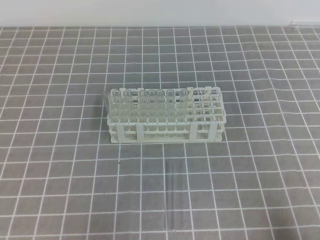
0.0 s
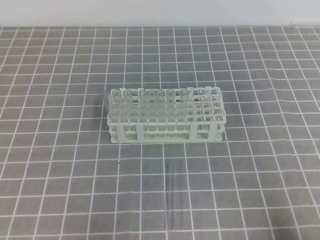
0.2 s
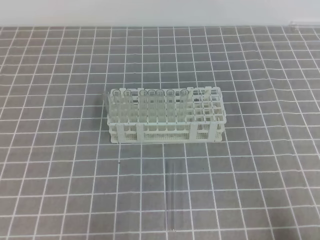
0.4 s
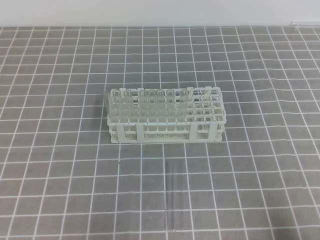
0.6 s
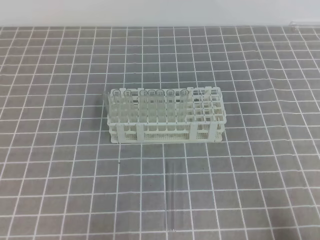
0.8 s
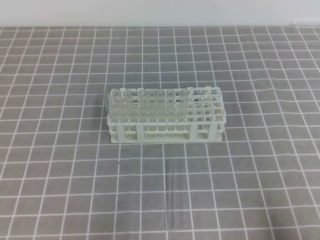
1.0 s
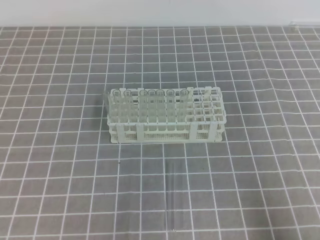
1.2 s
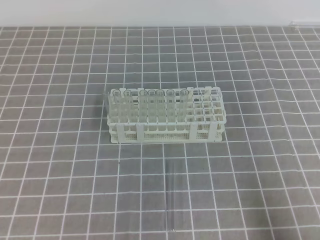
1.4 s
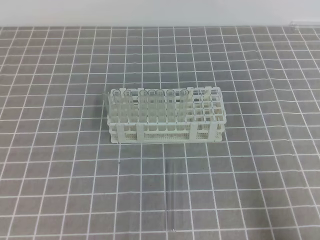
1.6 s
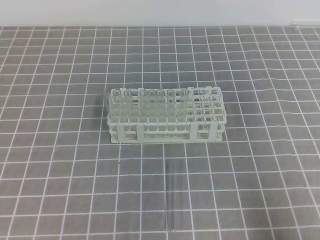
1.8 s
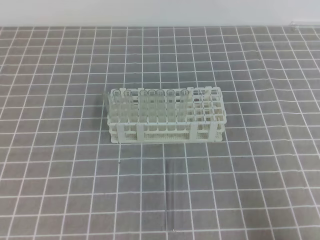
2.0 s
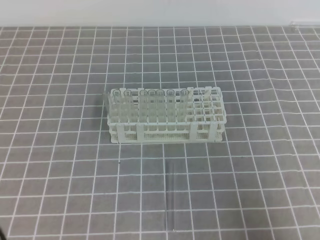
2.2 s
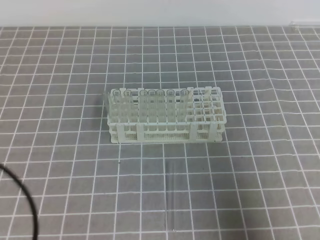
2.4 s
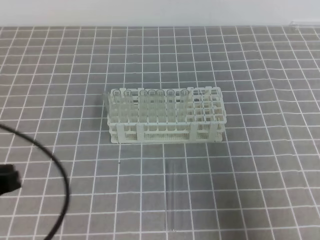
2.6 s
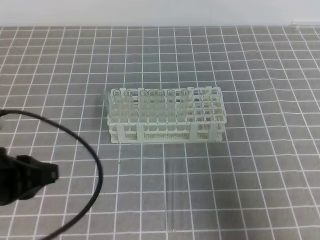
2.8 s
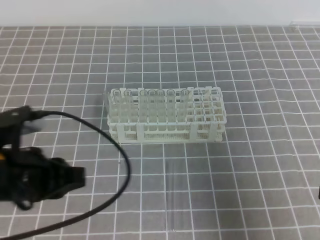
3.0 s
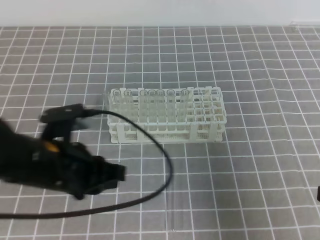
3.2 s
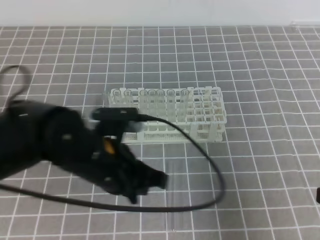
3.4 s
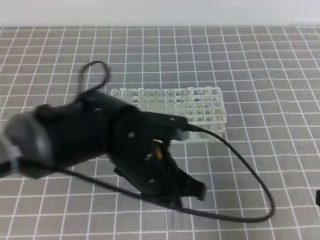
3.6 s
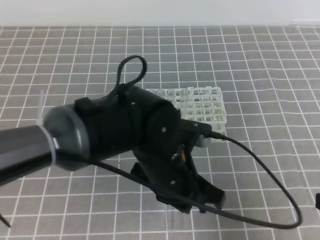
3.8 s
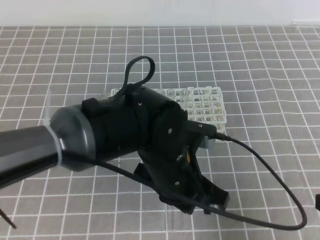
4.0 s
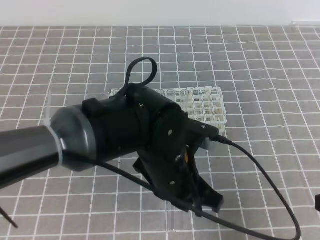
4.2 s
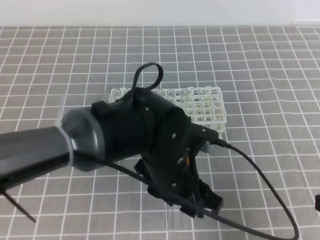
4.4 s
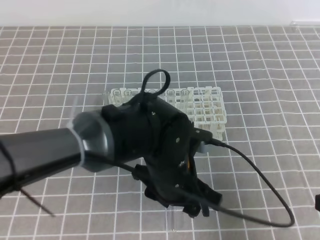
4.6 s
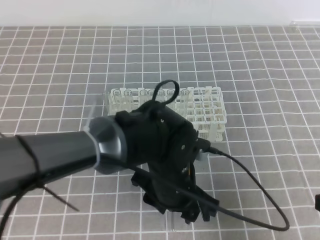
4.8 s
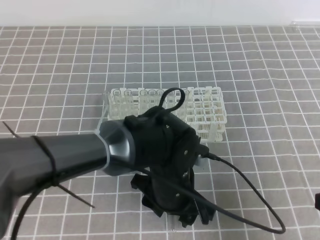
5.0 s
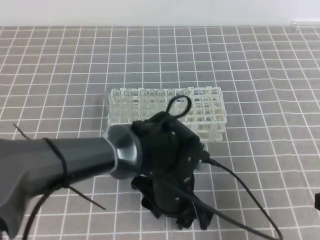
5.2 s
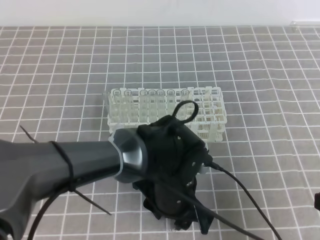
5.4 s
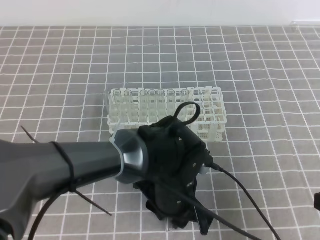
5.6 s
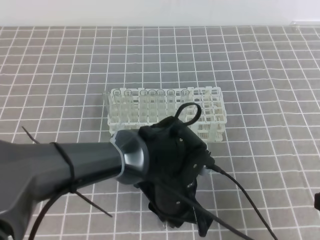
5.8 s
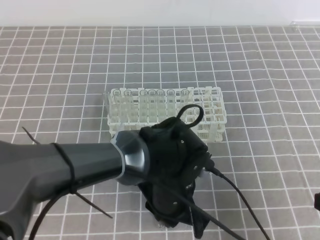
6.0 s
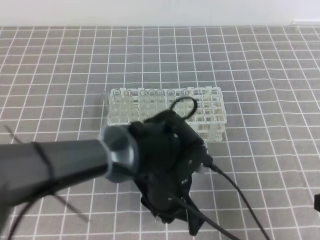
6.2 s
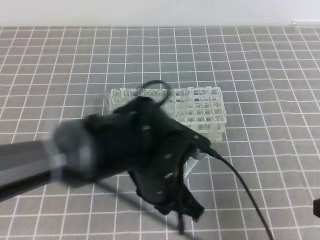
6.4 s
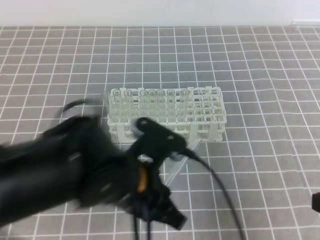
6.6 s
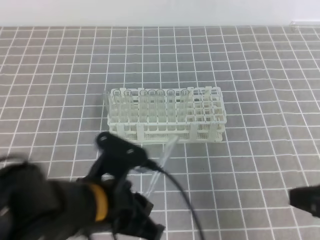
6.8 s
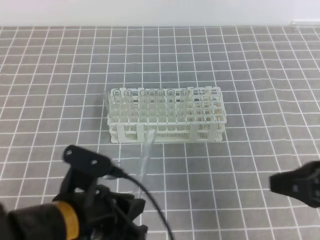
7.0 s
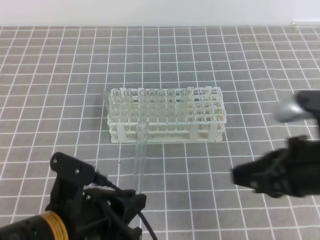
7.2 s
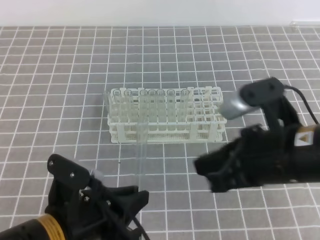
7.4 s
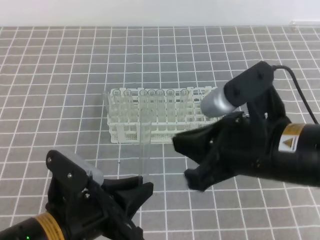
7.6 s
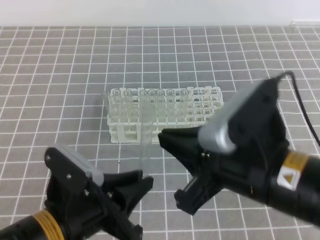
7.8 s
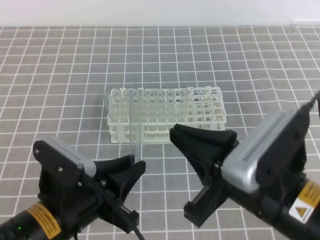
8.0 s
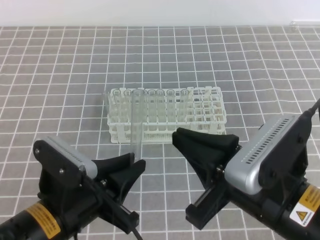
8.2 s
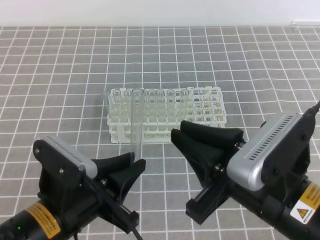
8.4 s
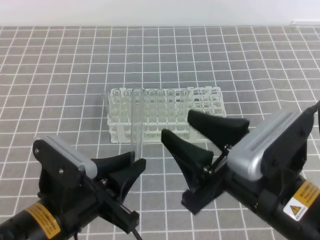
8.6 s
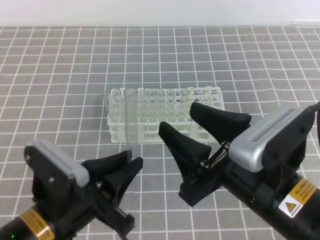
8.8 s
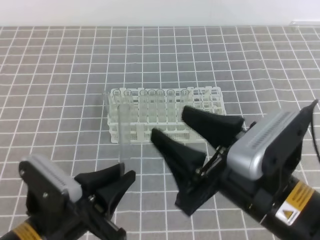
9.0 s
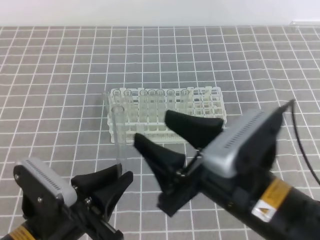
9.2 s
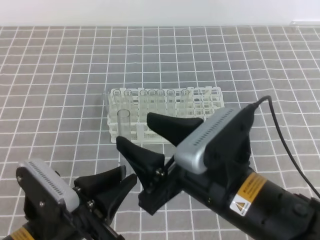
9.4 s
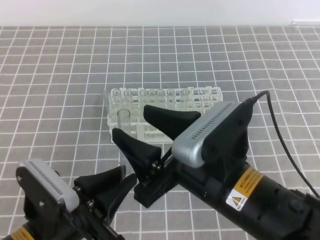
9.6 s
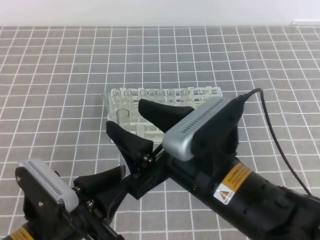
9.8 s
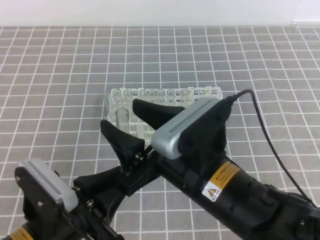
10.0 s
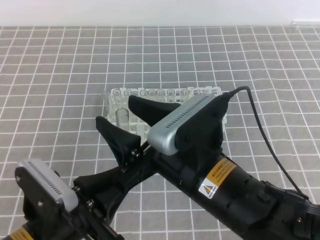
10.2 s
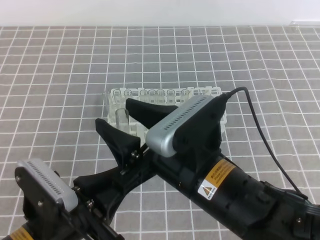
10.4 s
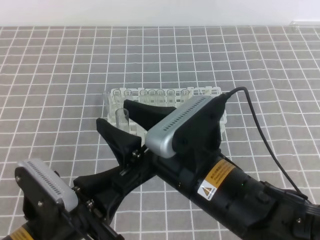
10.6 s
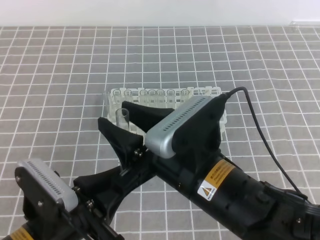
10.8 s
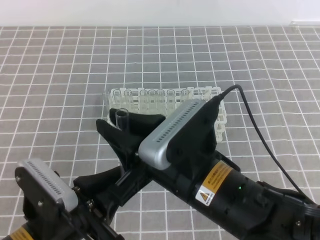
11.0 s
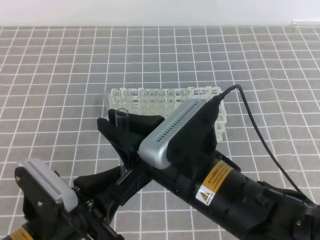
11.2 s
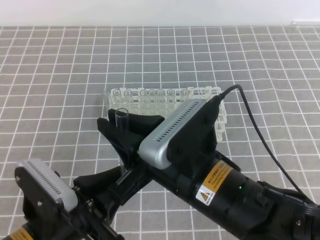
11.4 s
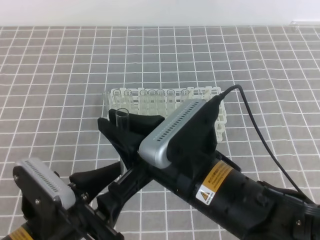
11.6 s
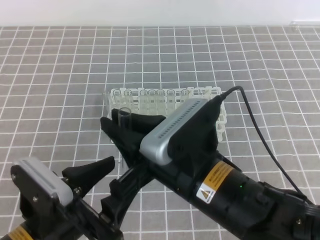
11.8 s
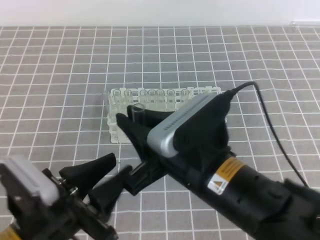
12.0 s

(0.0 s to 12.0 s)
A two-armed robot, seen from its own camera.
1.6 s - 3.0 s: The right gripper goes approximately 10 cm forward and upward; the left gripper moves forward, to the right and upward, some 15 cm.
3.0 s - 4.4 s: The left gripper shifts approximately 20 cm to the right, and opens.
4.4 s - 6.0 s: The left gripper travels downward by about 5 cm, and closes.
6.0 s - 7.6 s: The left gripper goes about 15 cm to the left and backward. The right gripper moves to the left, about 15 cm.
7.6 s - 9.0 s: The right gripper opens.
9.0 s - 10.4 s: The right gripper moves to the left, roughly 5 cm.
10.4 s - 12.0 s: The left gripper opens, while the right gripper closes its fingers.

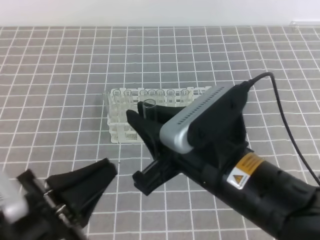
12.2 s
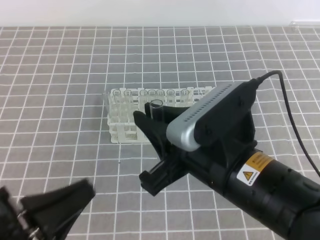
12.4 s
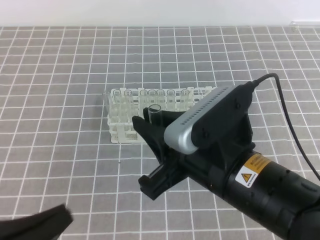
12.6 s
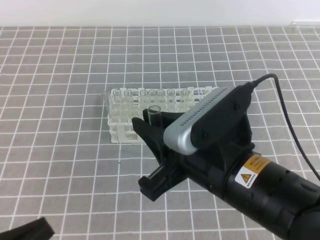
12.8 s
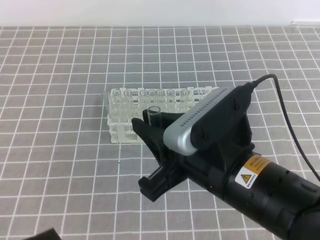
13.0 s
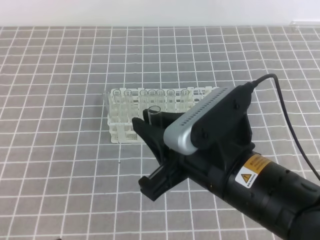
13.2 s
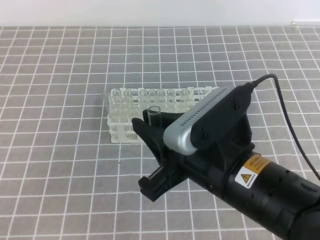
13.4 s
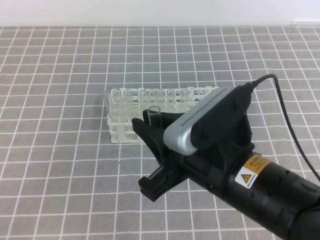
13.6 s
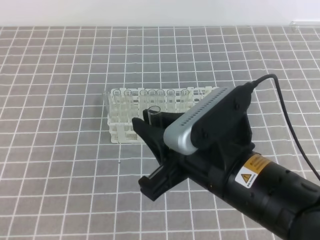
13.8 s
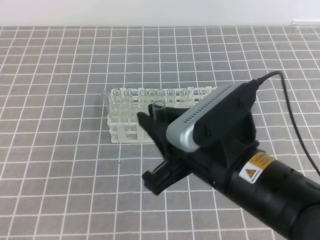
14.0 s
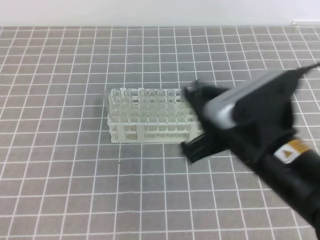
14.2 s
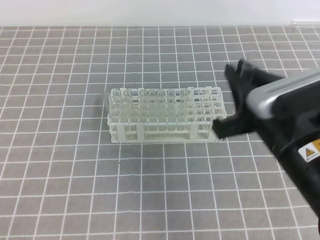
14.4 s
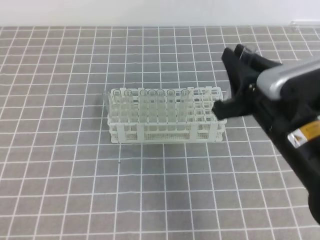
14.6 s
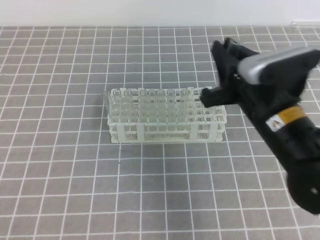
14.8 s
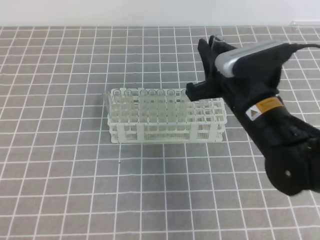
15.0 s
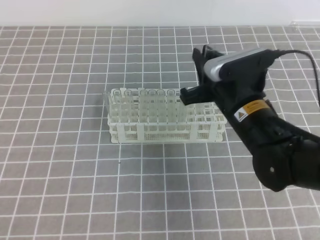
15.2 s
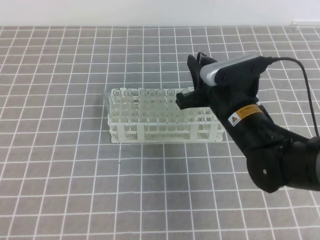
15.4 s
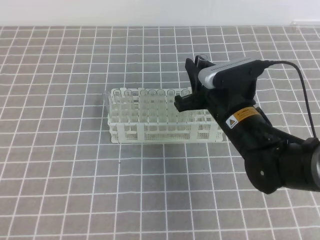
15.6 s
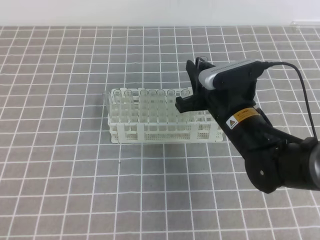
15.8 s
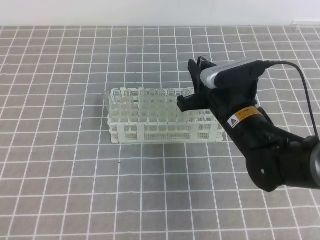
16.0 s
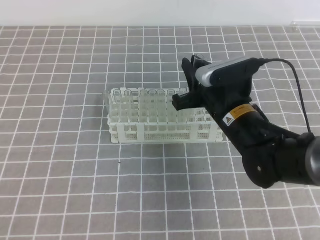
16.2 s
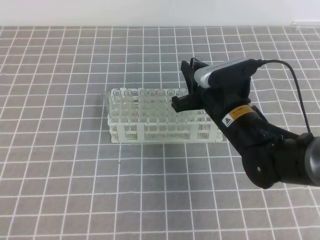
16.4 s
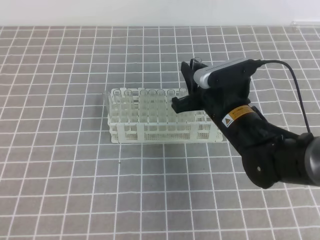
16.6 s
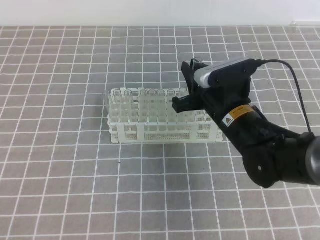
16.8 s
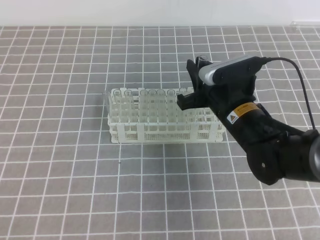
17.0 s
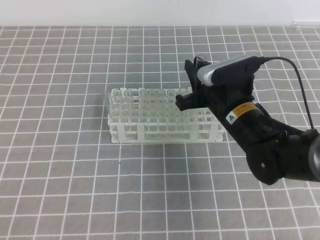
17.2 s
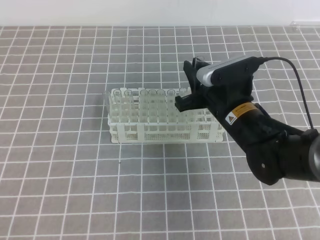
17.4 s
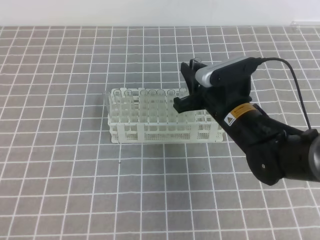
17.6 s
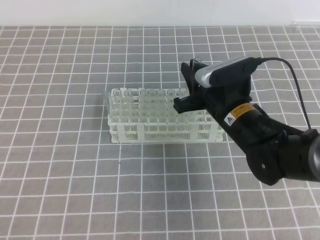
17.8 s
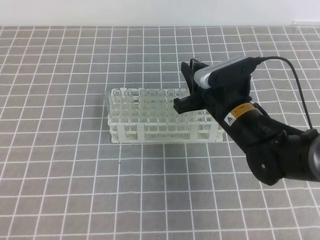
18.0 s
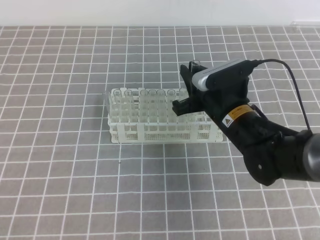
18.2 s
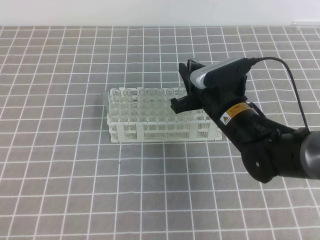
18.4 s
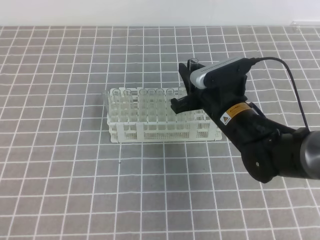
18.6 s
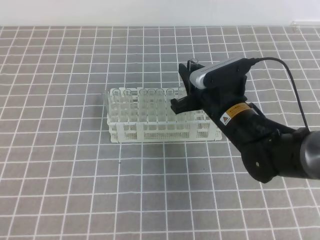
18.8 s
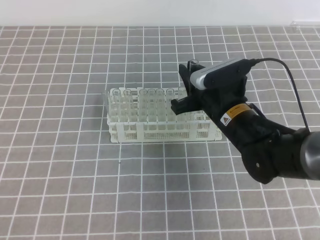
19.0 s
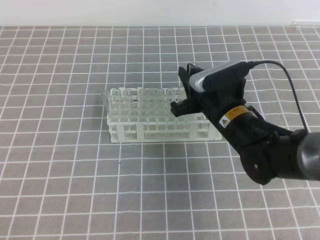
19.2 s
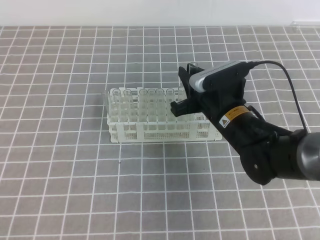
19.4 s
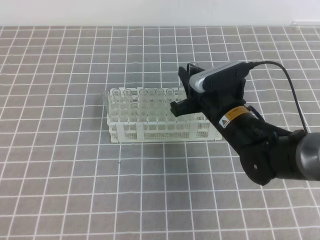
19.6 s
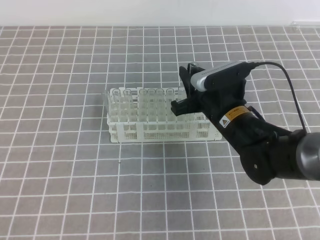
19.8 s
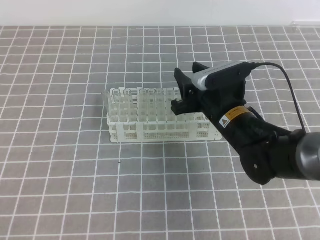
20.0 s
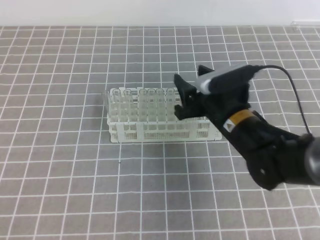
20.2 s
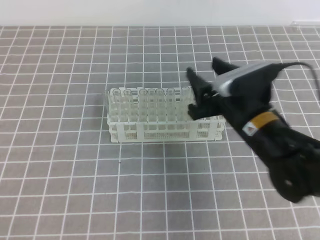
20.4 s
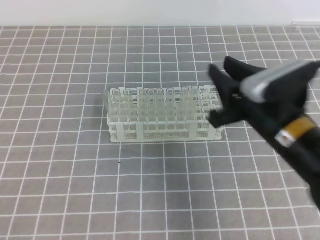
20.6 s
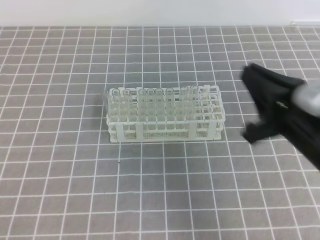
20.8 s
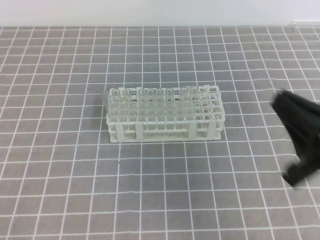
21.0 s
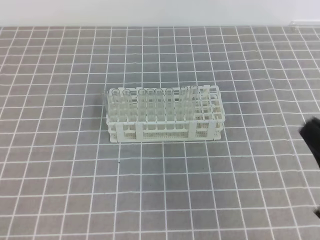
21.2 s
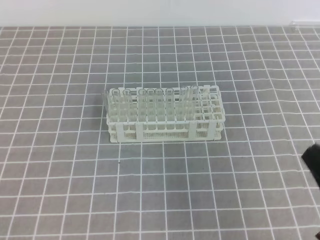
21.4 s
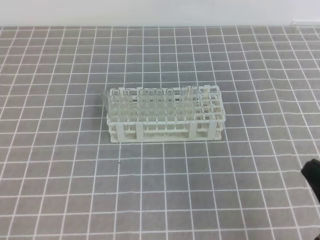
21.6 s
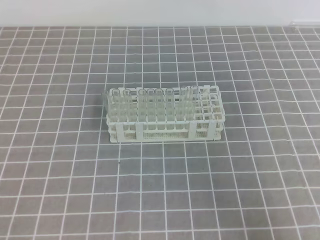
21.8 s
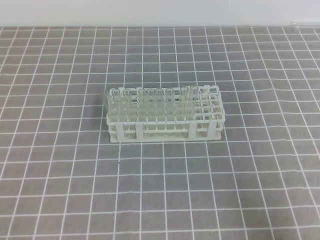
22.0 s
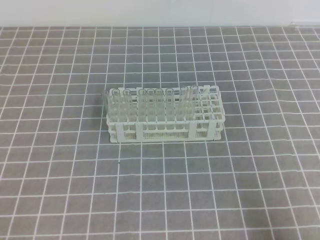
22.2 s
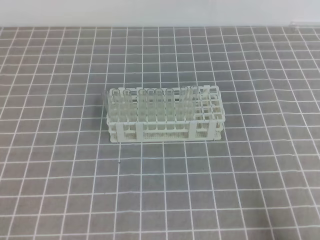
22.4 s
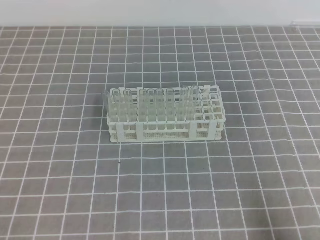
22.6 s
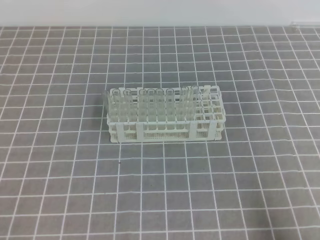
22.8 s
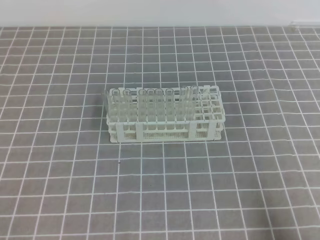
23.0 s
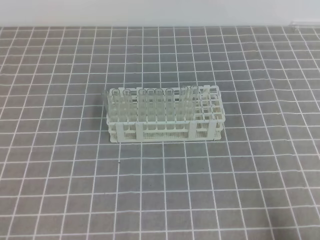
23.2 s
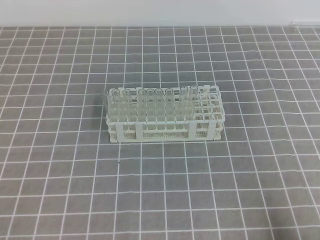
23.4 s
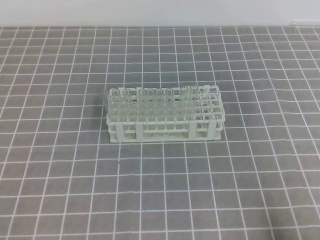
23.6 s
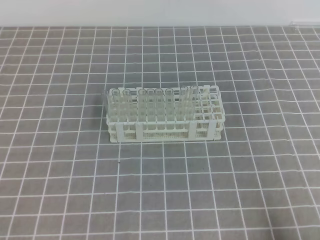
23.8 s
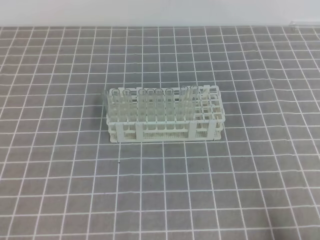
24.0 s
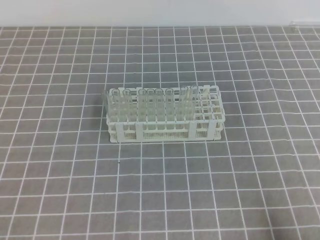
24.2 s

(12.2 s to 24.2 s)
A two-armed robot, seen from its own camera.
12.2 s - 13.8 s: The left gripper moves to the left, backward and downward, about 10 cm.
13.8 s - 15.2 s: The right gripper goes about 15 cm forward and downward.
15.2 s - 16.6 s: The grippers move only a little.
16.6 s - 18.2 s: Both grippers stay put.
18.2 s - 19.8 s: Both grippers stay about where they are.
19.8 s - 21.2 s: The right gripper heads backward and to the right, covering approximately 25 cm, and closes up.
21.2 s - 22.6 s: The right gripper travels downward, to the right and backward by about 10 cm.
